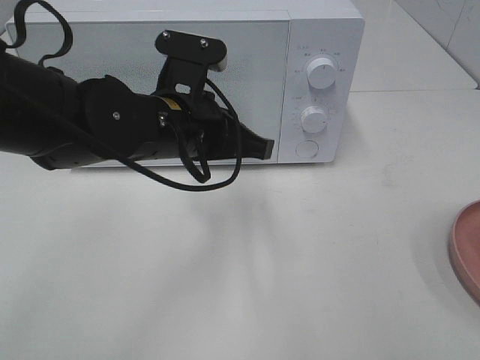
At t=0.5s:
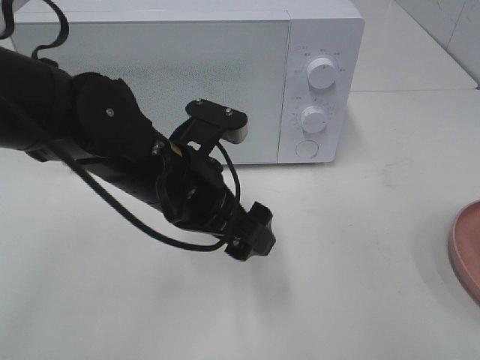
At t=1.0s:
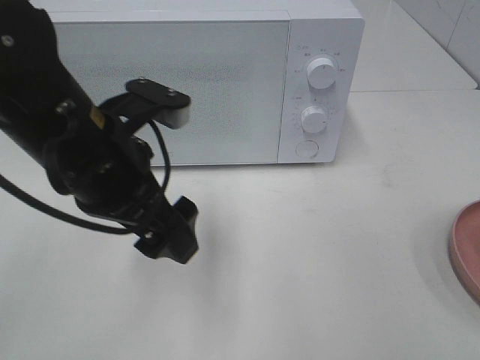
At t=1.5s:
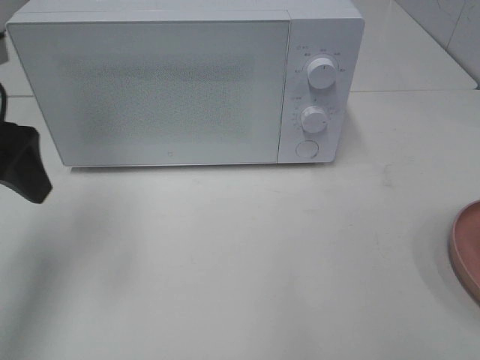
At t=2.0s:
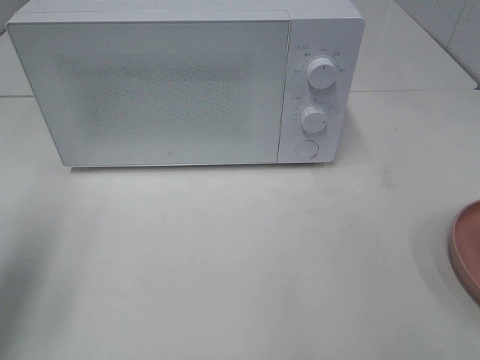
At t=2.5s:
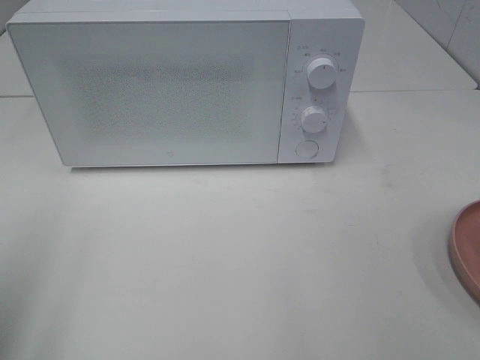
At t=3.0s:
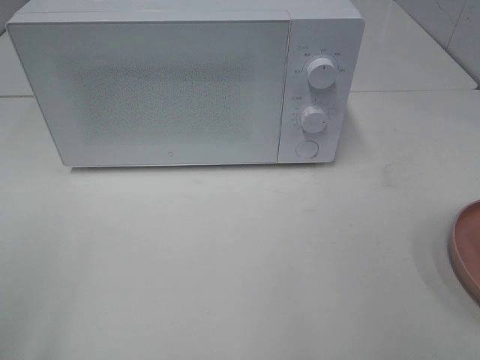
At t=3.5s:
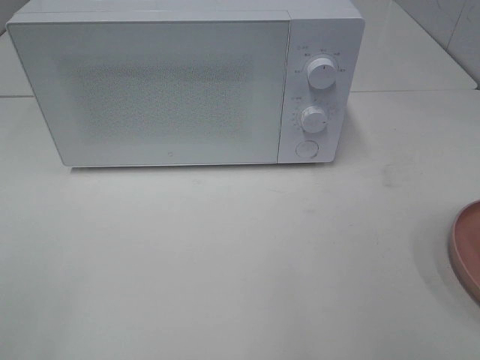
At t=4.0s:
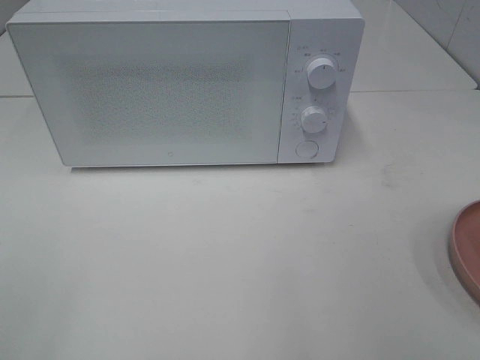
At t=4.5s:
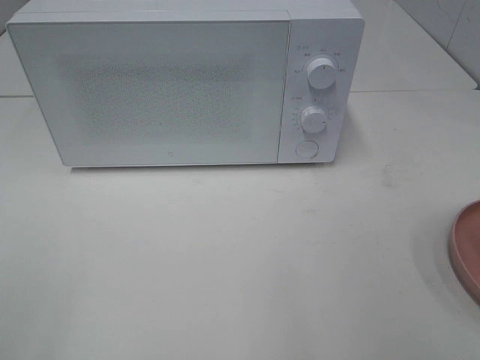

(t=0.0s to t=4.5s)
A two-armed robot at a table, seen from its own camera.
Task of the whole recording: Heat the burger.
t=0.0s - t=2.0s: The left gripper shifts roughly 25 cm to the left, and opens up.
t=2.0s - t=4.5s: The left gripper shifts approximately 20 cm backward.

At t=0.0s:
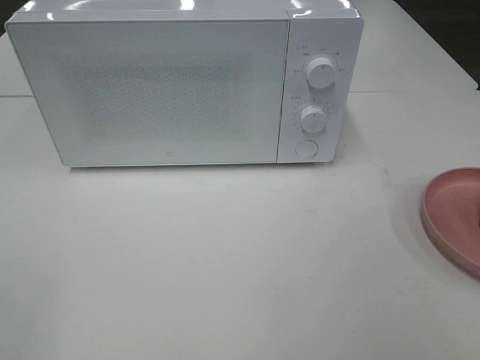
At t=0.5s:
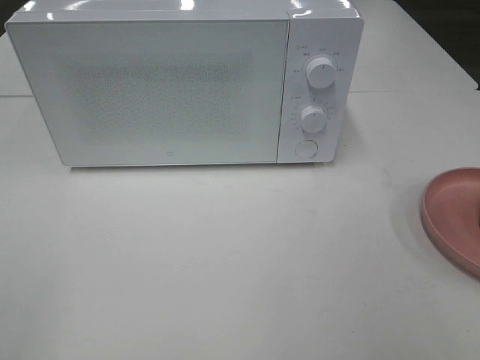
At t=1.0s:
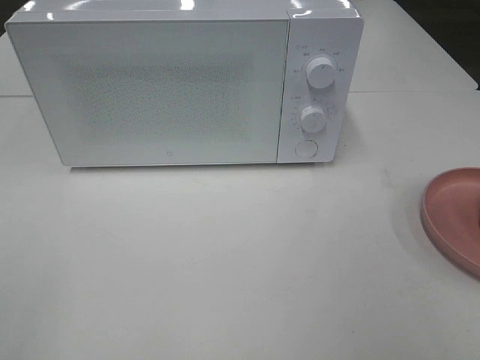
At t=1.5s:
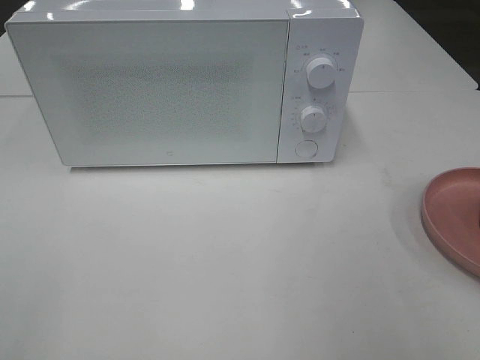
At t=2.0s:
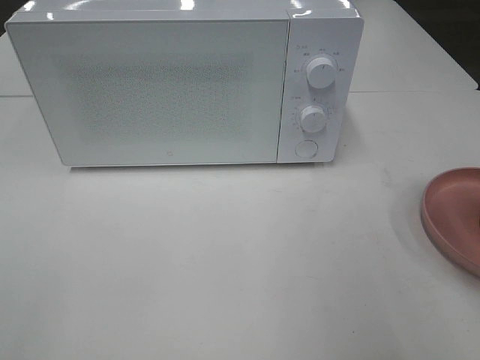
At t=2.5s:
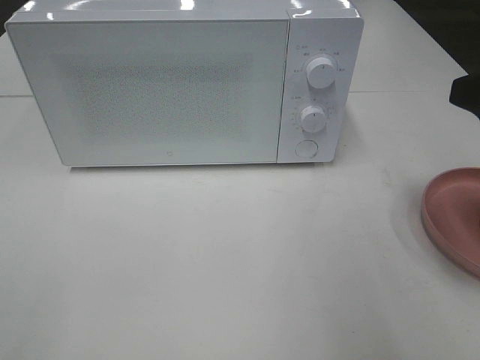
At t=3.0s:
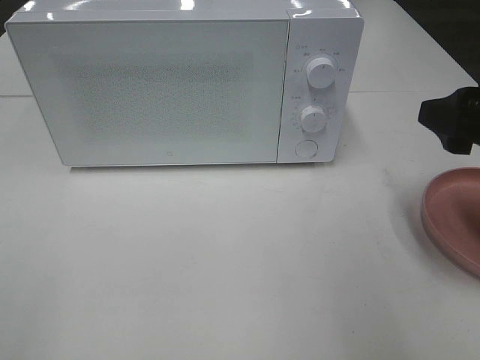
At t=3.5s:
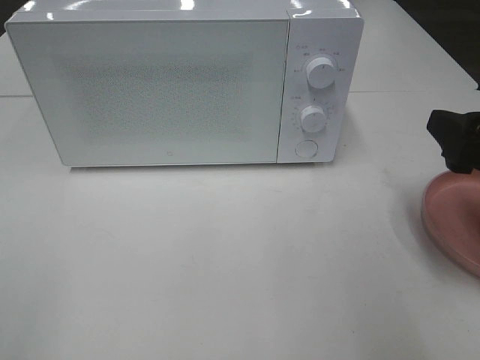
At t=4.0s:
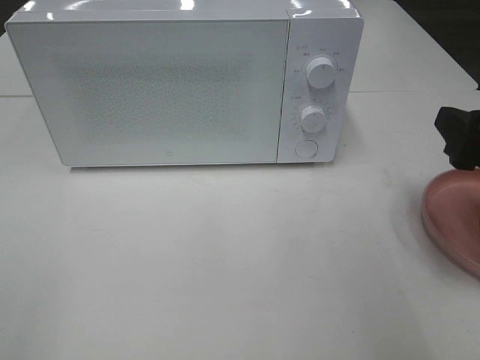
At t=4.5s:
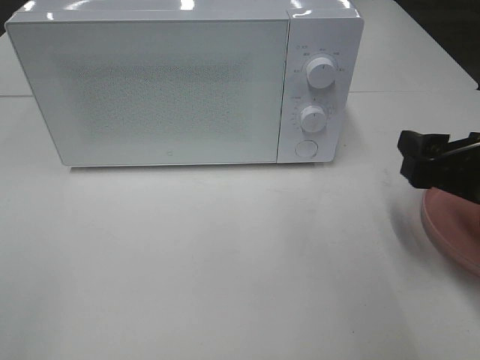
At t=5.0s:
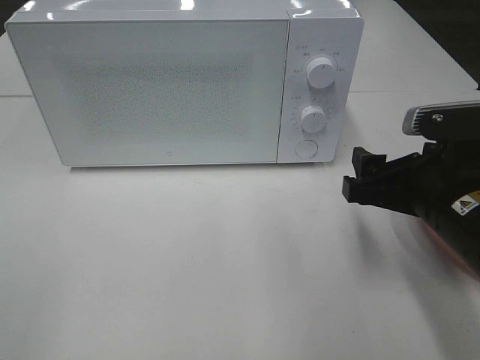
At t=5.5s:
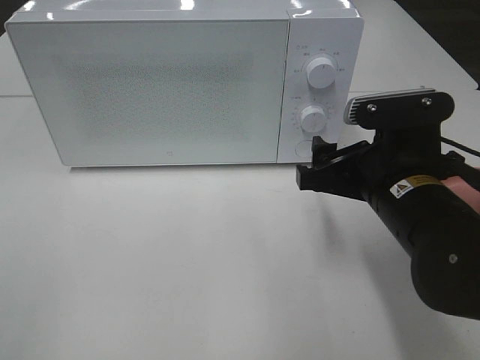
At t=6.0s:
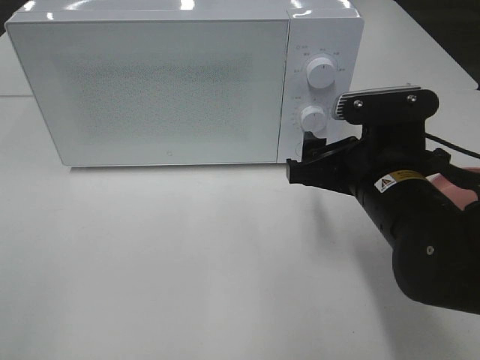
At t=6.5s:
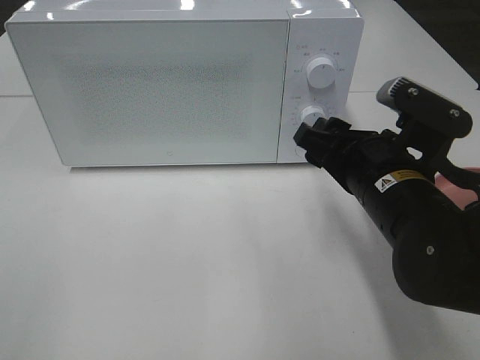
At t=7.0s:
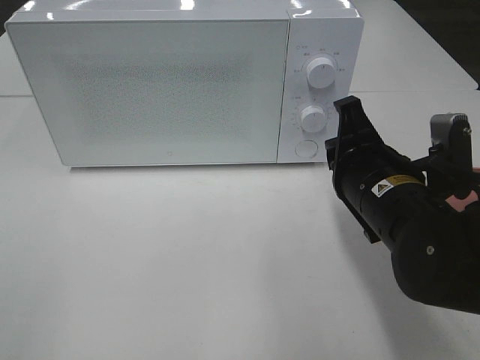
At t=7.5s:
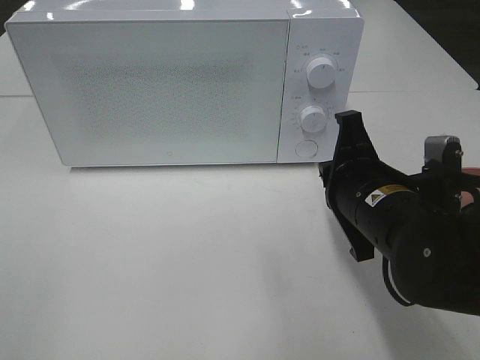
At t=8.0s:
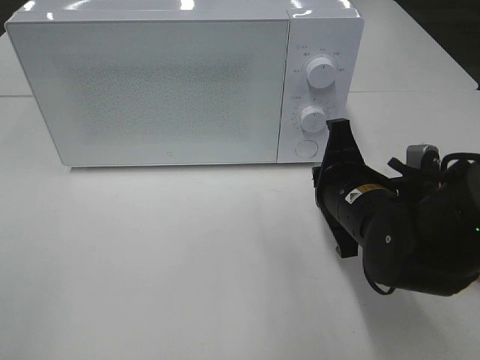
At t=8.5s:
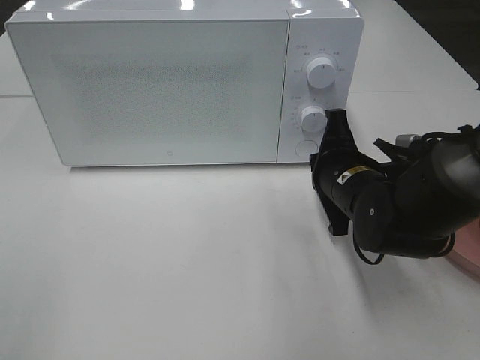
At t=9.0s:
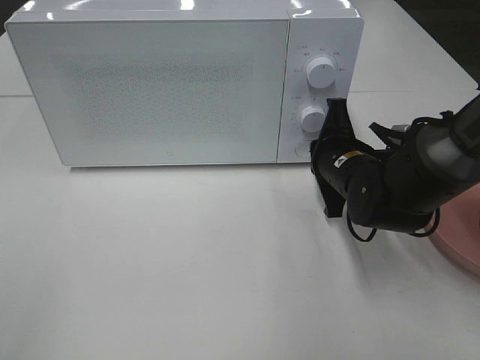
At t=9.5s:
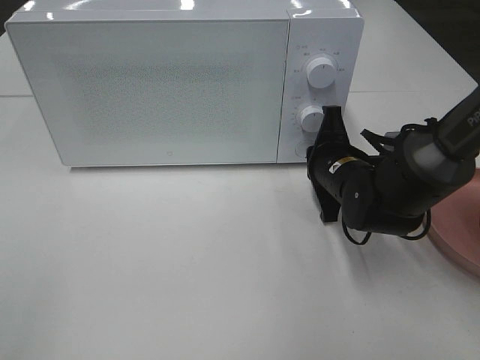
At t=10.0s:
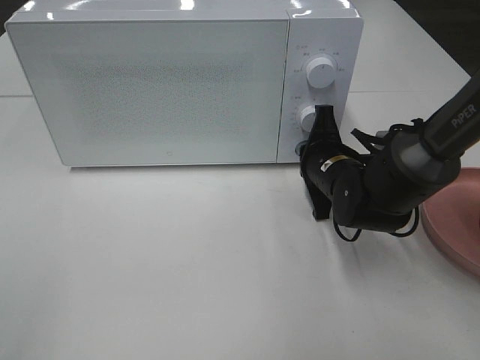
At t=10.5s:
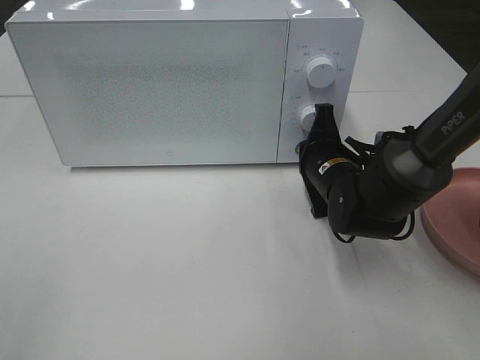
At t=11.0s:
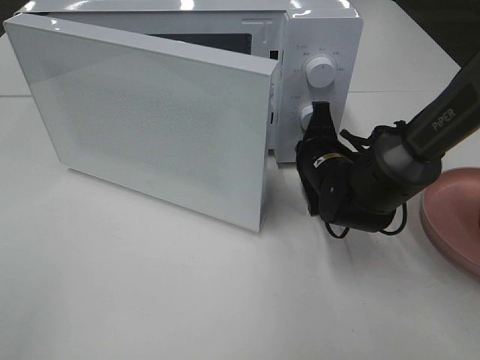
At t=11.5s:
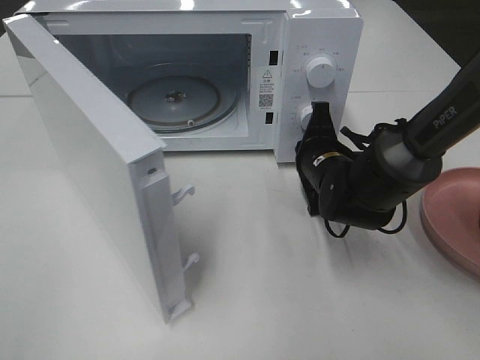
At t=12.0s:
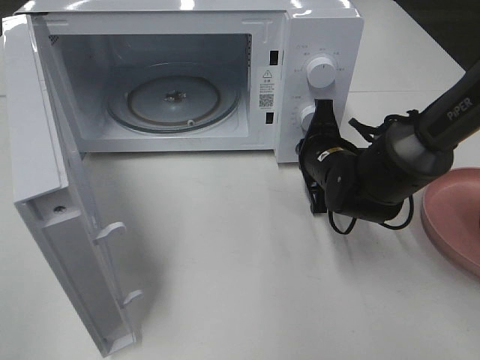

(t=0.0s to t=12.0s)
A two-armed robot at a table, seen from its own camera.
Task of the whole recording: Heat the burger.
t=2.0s - t=4.0s: The right gripper travels downward by approximately 10 cm.
t=4.0s - t=6.0s: The right gripper moves to the left and downward, about 15 cm.
t=6.0s - t=8.0s: The right gripper closes its fingers.
t=8.0s - t=10.0s: The right gripper moves forward, roughly 10 cm.

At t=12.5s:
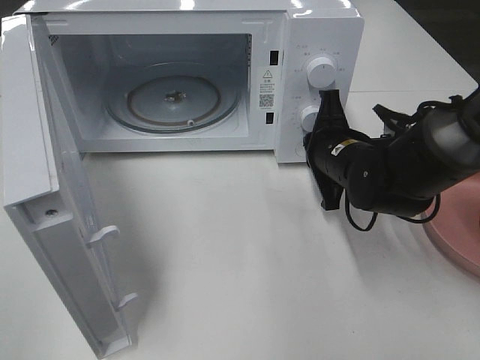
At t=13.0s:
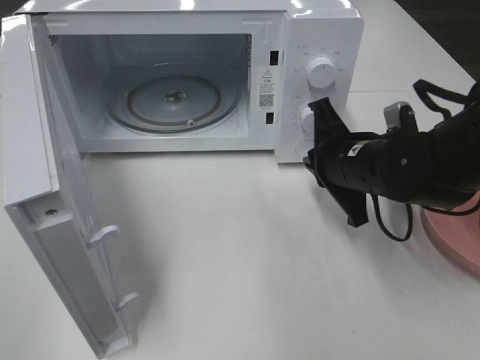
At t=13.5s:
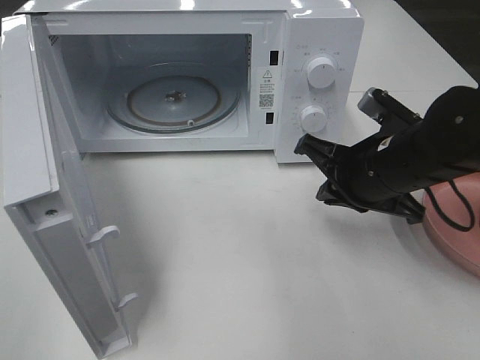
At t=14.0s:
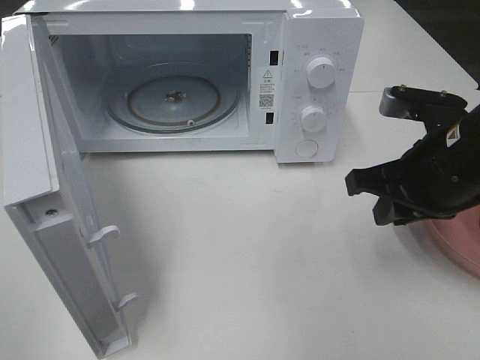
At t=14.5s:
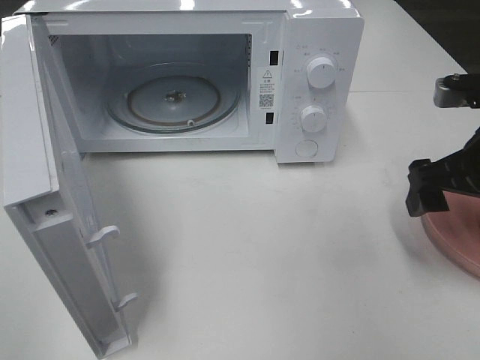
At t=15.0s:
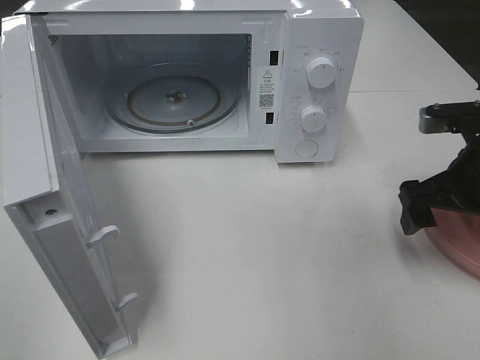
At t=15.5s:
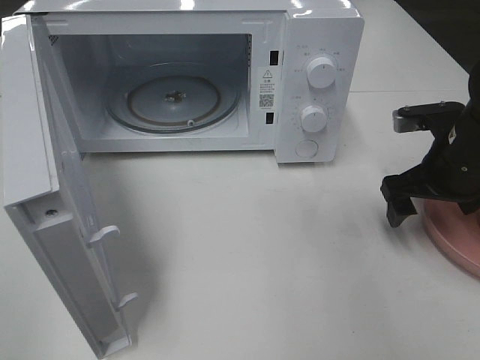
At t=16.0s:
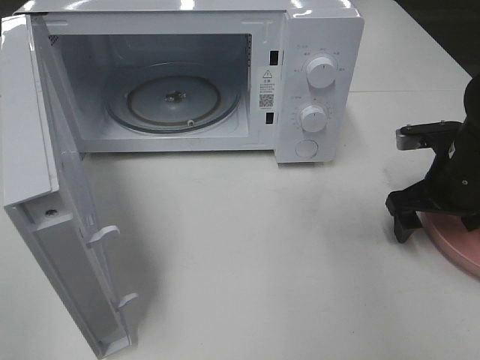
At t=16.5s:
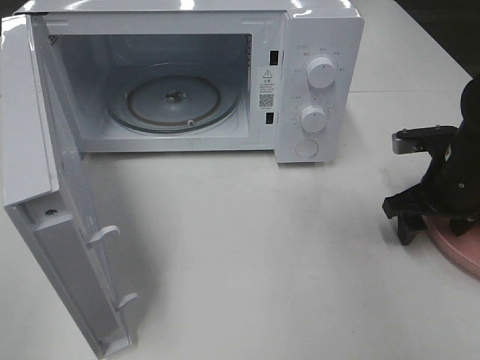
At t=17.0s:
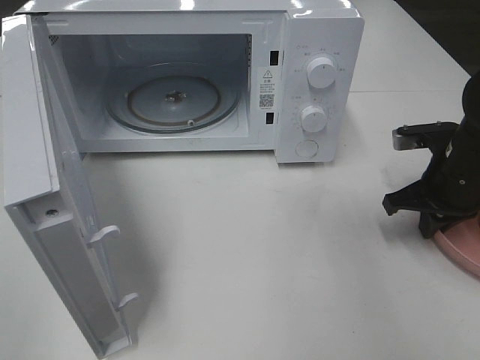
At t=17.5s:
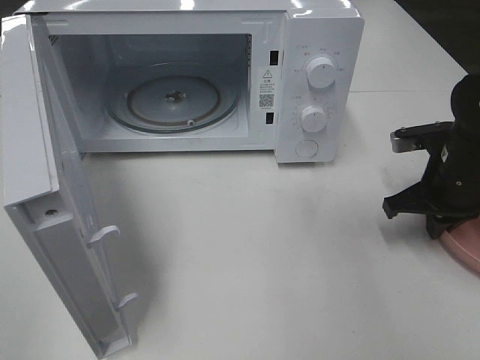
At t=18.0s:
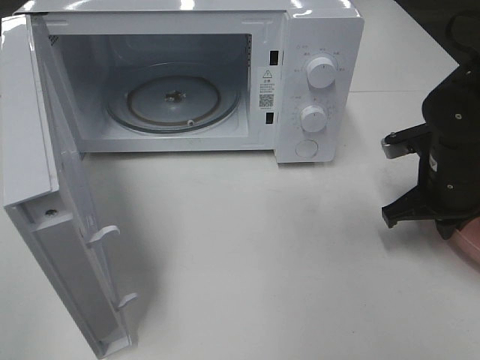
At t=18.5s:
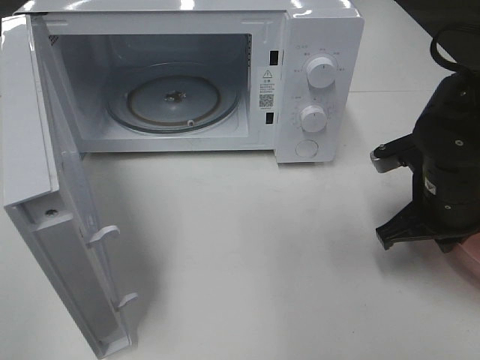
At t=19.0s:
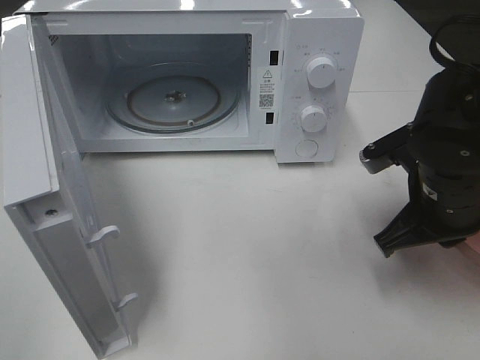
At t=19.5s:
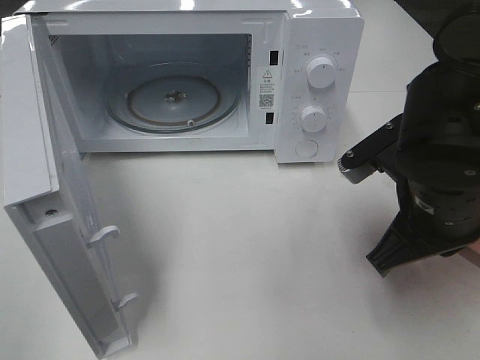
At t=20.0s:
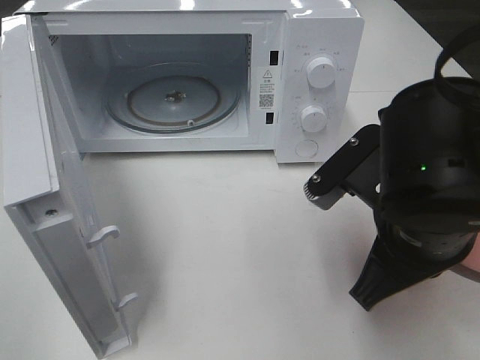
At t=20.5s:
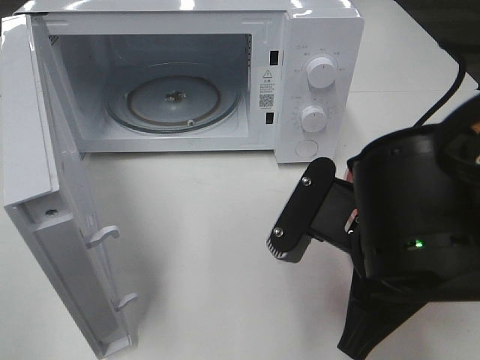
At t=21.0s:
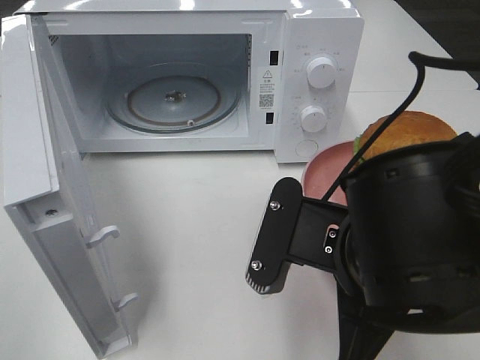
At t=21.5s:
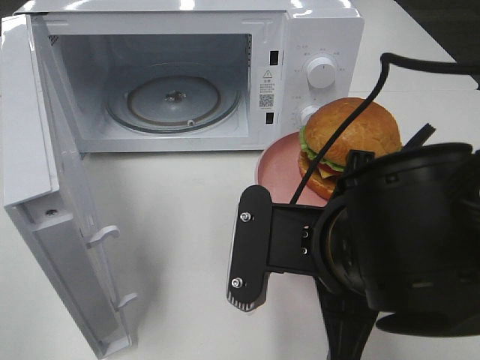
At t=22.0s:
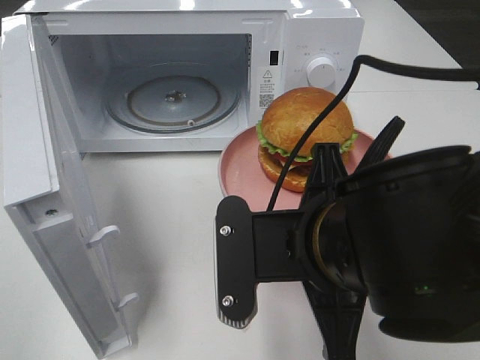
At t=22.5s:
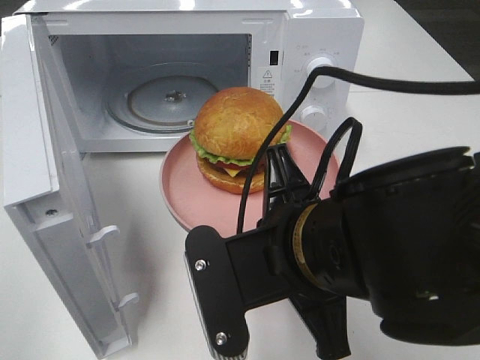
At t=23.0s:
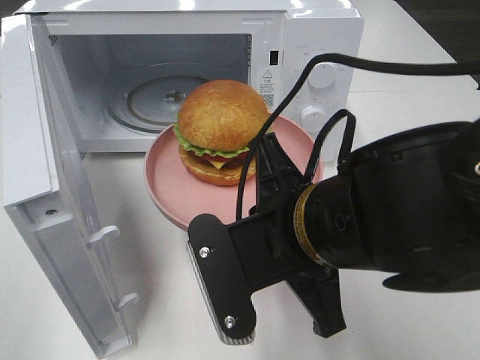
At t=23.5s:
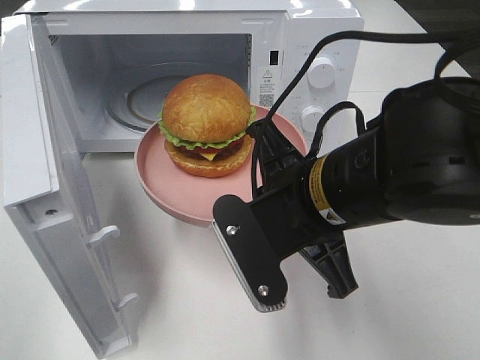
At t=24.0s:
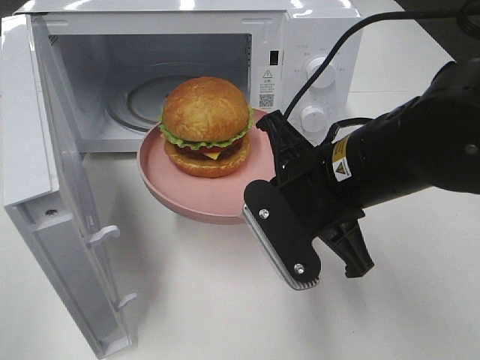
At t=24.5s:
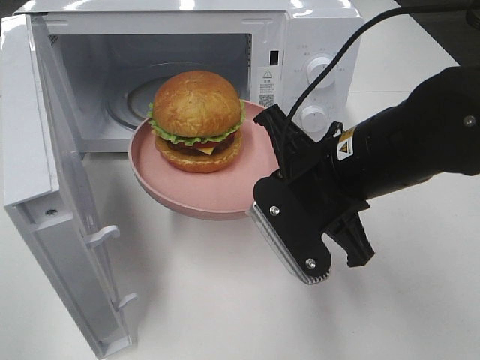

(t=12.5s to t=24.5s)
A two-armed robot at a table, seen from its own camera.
Task of the whole recording: Heat the burger.
Step, t=13.0s - t=16.5s: Right hand: grab the plate with the hamburger.
t=12.5s - t=14.5s: The right gripper moves to the right, upward and backward, some 15 cm, and opens its fingers.
t=14.5s - t=16.5s: The right gripper travels downward and forward by about 10 cm.
t=16.5s - t=18.5s: The right gripper is displaced to the left and backward by about 10 cm, and closes its fingers.
t=18.5s - t=20.5s: The right gripper moves backward, to the left and upward, approximately 20 cm.
t=22.5s - t=24.5s: The right gripper moves forward, approximately 10 cm.
